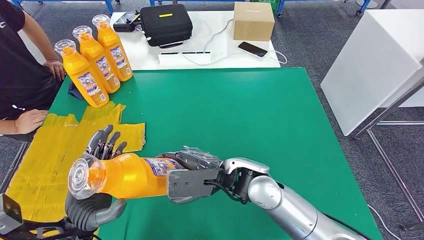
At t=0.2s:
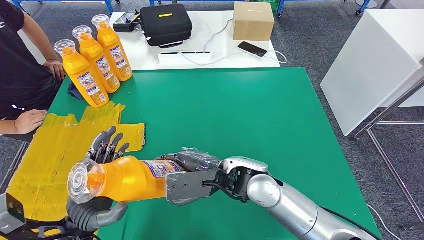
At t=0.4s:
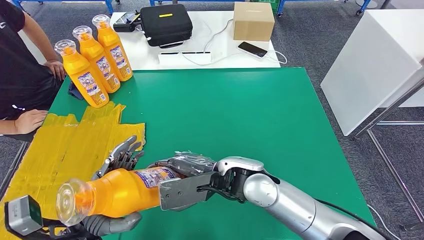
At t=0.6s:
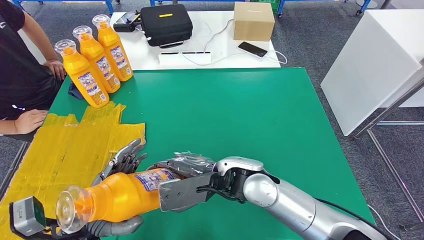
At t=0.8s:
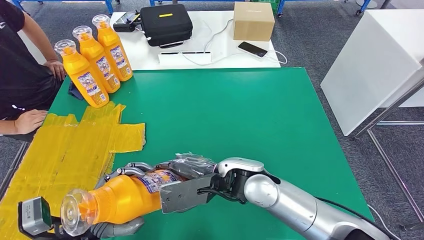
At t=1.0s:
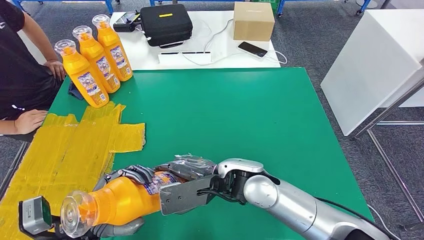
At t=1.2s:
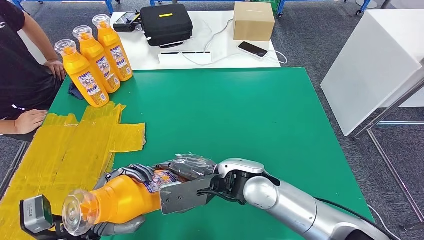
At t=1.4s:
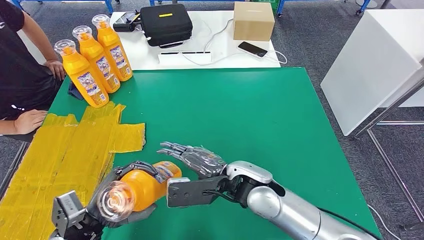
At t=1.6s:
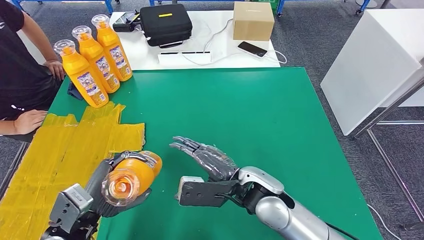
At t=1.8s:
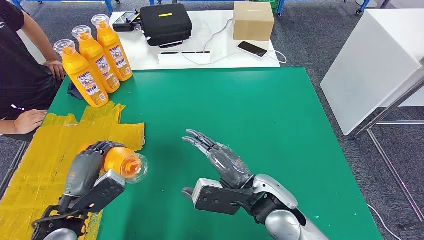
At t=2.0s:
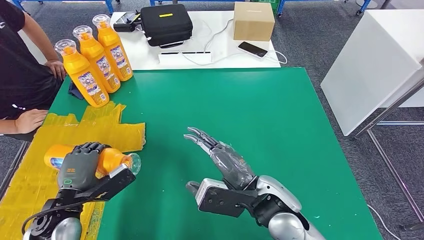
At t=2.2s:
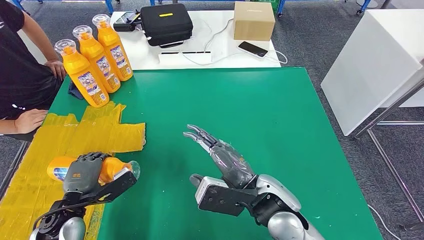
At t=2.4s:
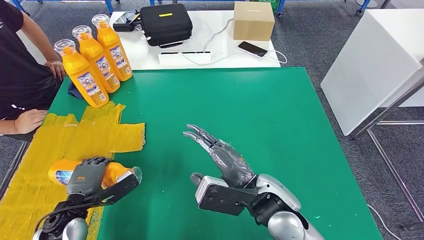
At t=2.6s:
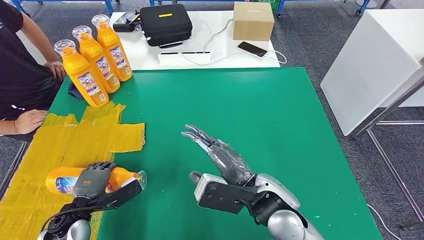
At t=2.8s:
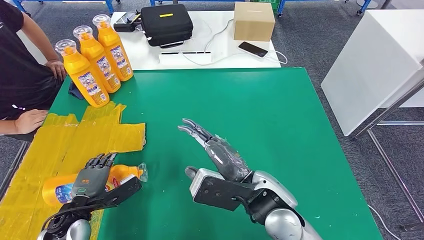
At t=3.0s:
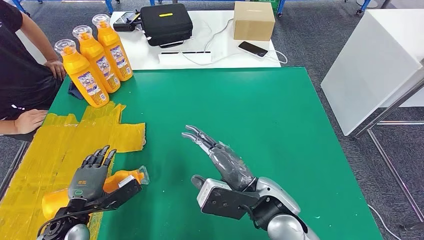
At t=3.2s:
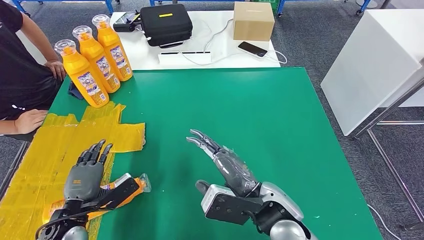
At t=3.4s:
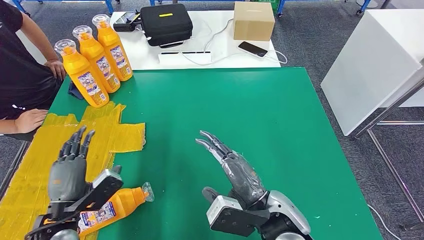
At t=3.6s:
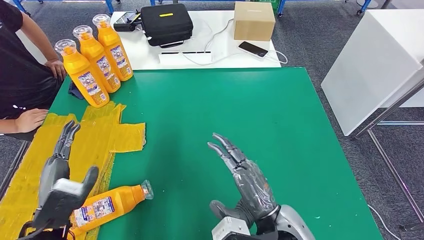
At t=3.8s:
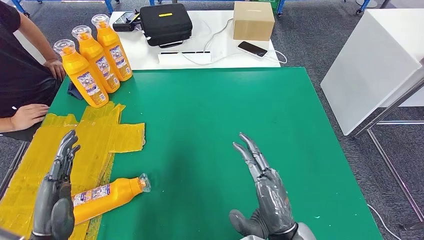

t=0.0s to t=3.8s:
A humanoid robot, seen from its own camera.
Step, t=0.0s to t=3.8s: Flip the fast-moving consumer goods bottle to the front side.
t=1.2s to t=2.6s: The left hand heads downward and to the left, covering approximately 10 cm, while the right hand ends up some 5 cm from where it was.
t=2.6s to t=3.8s: The right hand moves backward, roughly 10 cm. Meanwhile the left hand is displaced upward and backward by about 15 cm.
